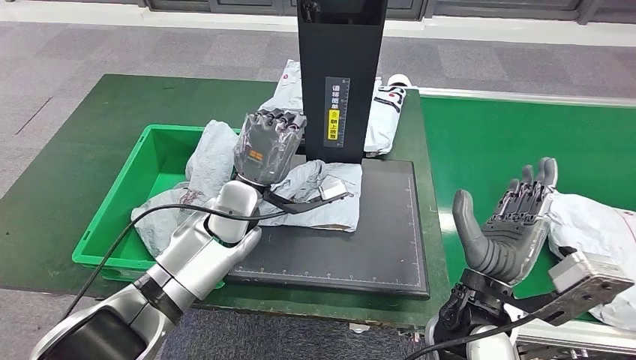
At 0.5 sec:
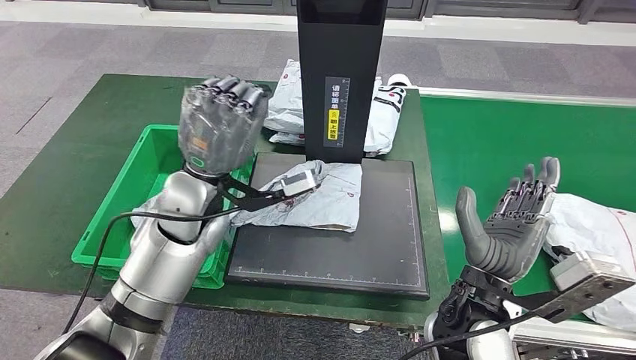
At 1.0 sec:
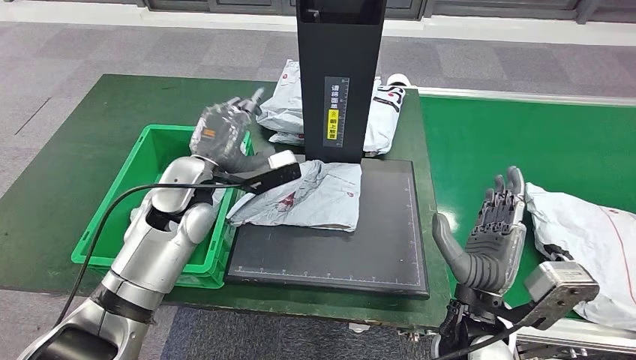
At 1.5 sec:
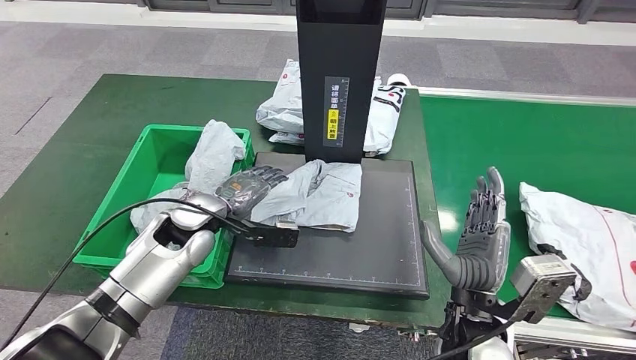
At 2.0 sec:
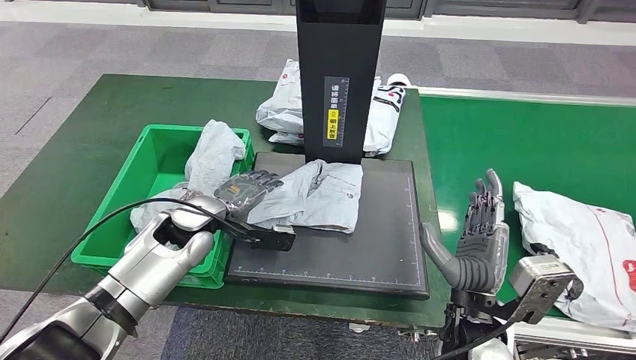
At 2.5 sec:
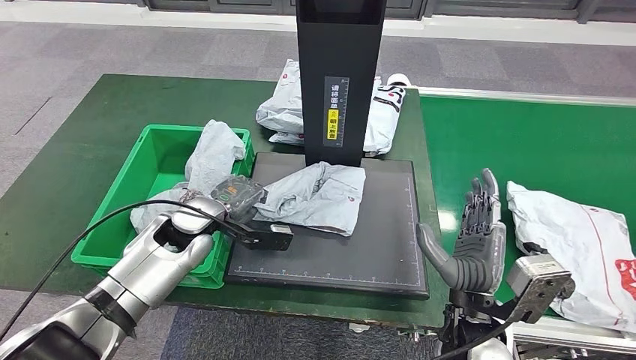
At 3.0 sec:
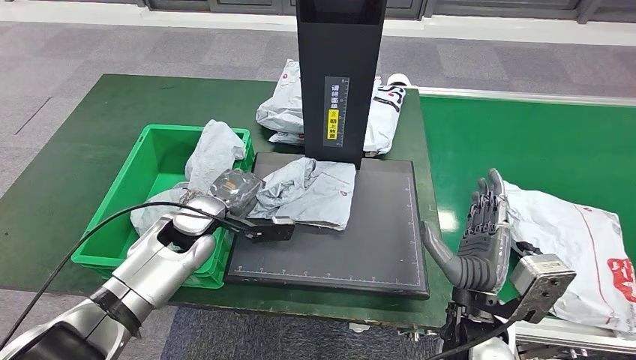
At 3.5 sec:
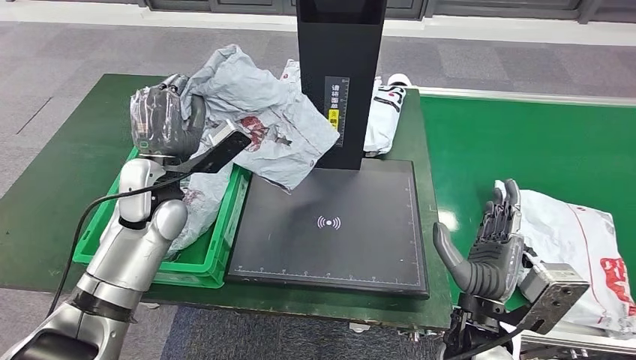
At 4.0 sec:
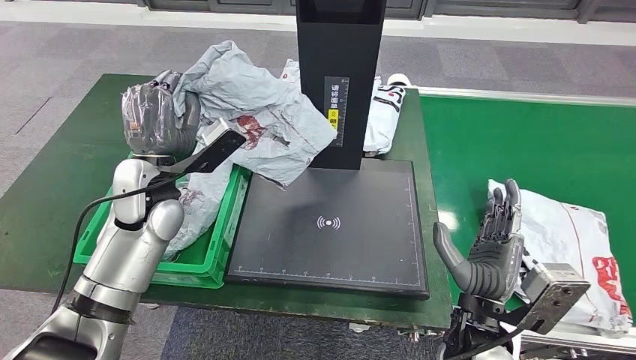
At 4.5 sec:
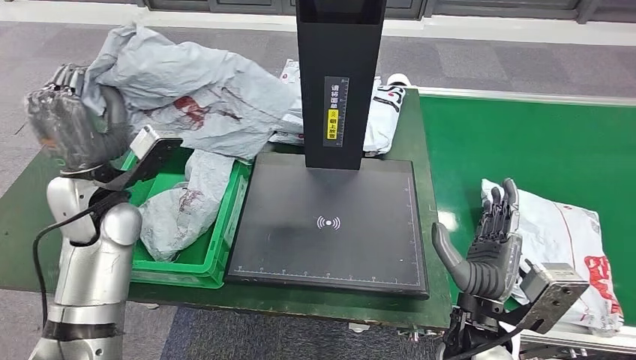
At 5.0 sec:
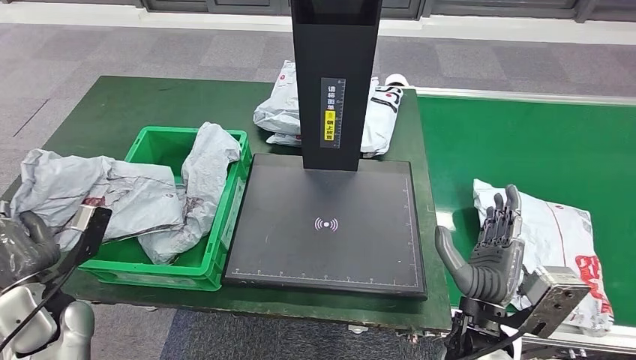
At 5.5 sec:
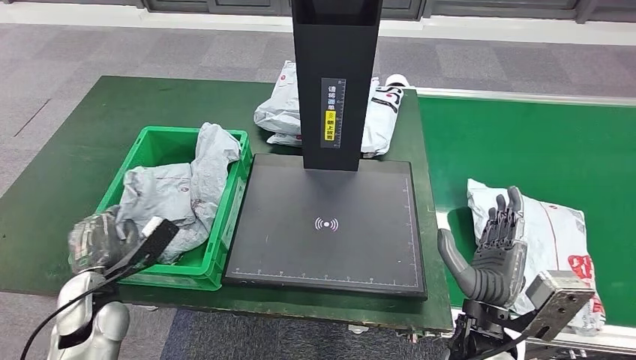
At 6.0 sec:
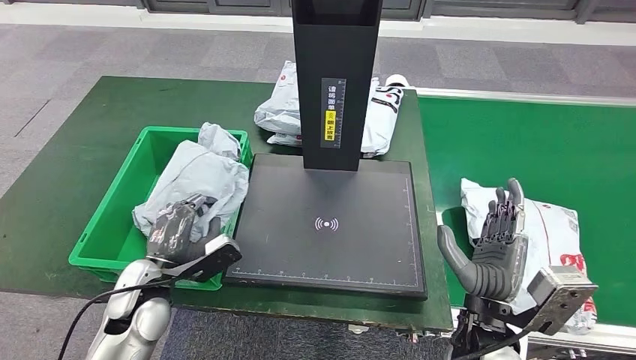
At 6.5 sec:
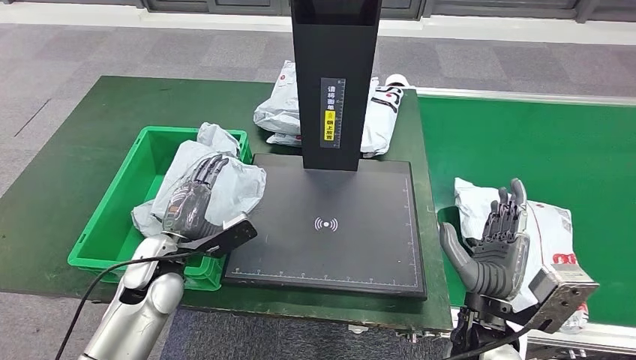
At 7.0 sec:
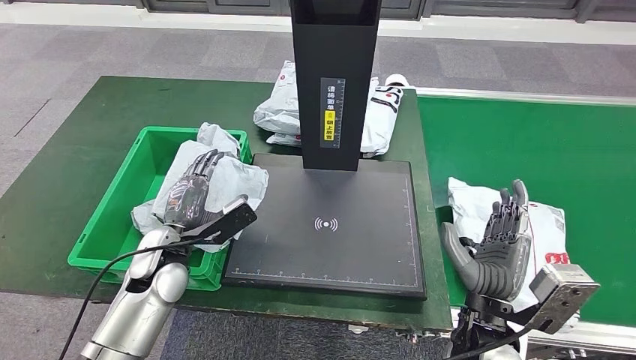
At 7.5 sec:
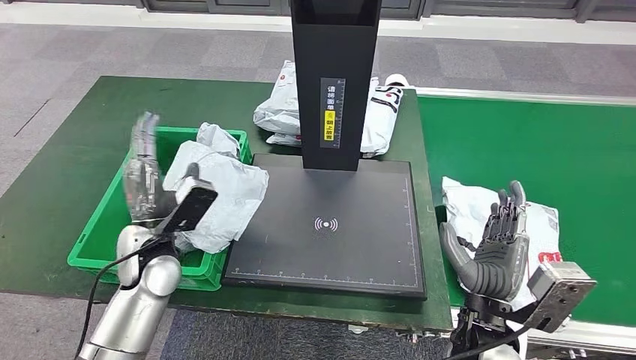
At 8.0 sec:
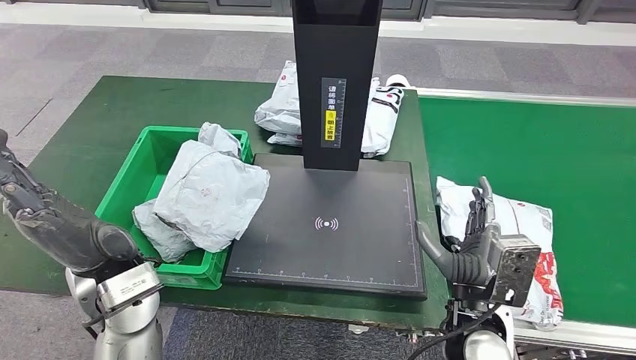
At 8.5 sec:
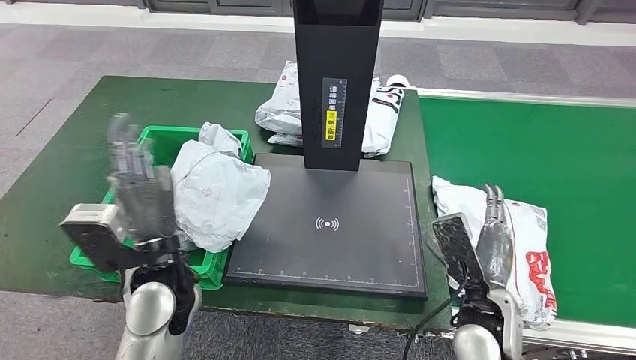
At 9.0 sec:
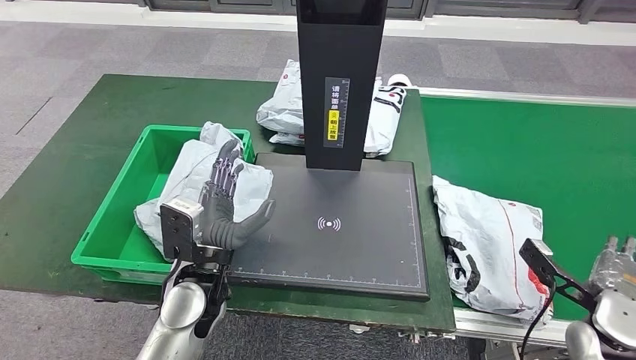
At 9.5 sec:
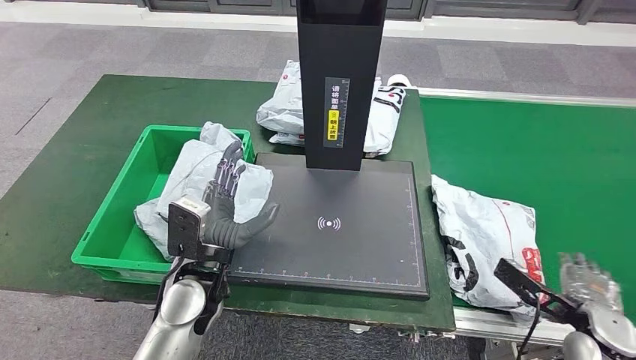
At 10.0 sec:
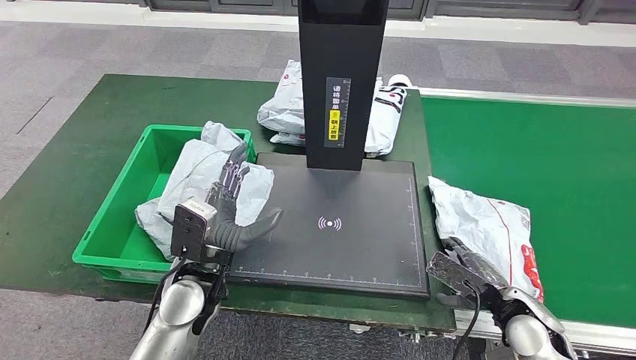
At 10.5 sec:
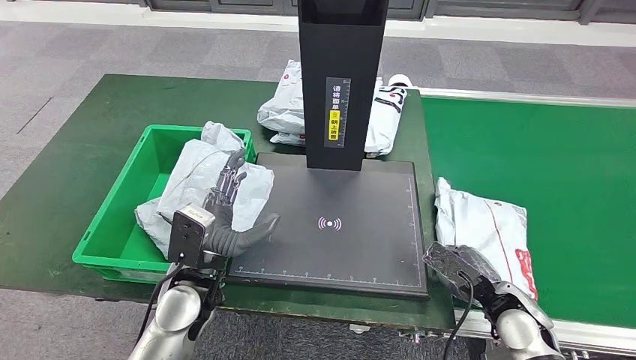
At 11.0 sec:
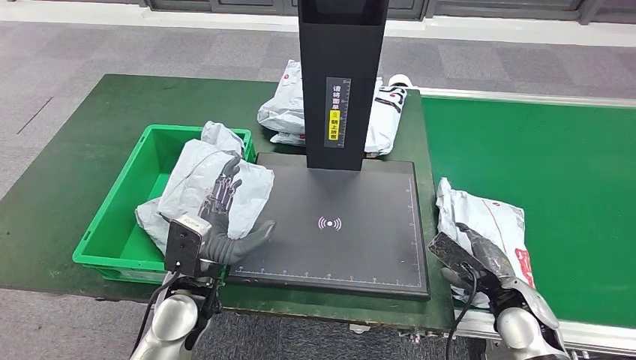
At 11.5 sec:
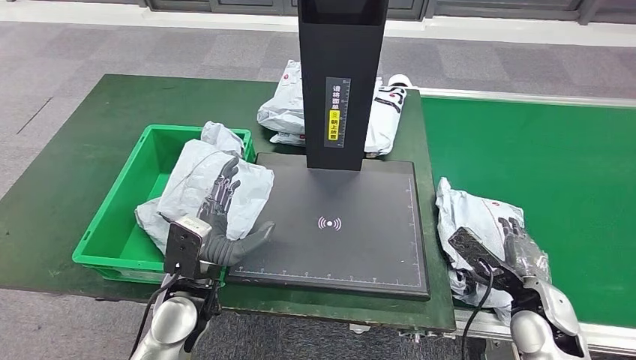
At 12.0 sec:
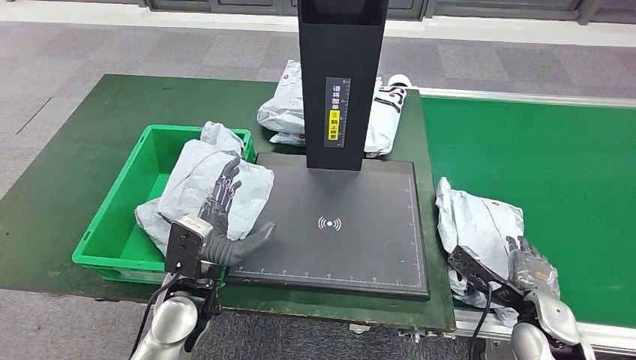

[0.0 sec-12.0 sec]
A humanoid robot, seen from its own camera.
Step, 1.0 sec to 3.5 sec: Pick up the parcel from the inbound machine.
Step, 4.5 sec to 7.5 sec: Place the parcel into the delivery box.
6.0 sec to 8.0 sec: The left hand heads upward, covering roughly 10 cm.

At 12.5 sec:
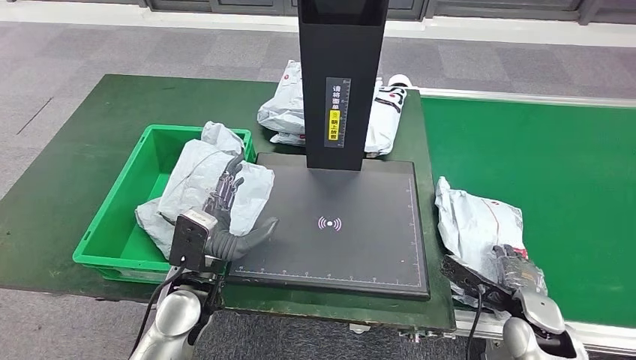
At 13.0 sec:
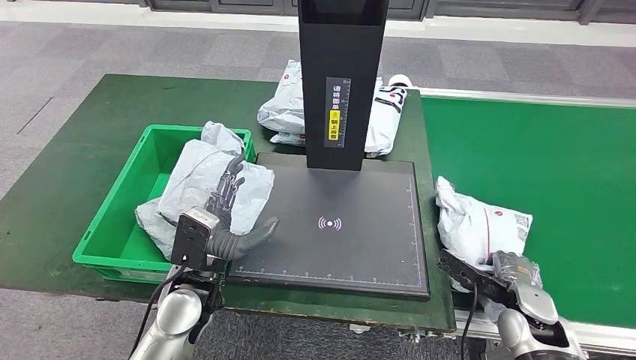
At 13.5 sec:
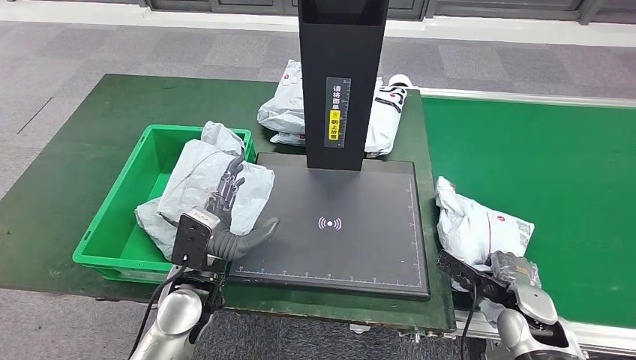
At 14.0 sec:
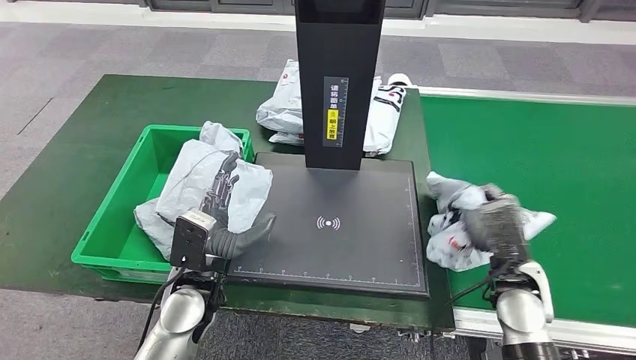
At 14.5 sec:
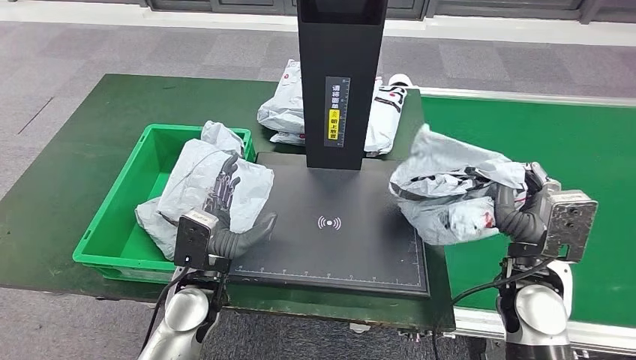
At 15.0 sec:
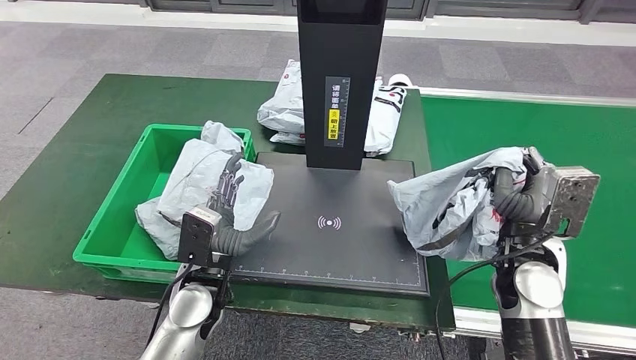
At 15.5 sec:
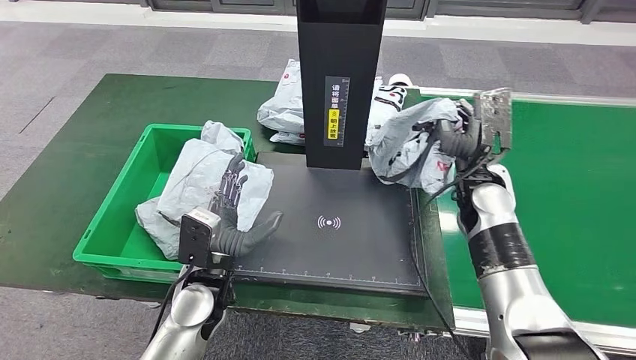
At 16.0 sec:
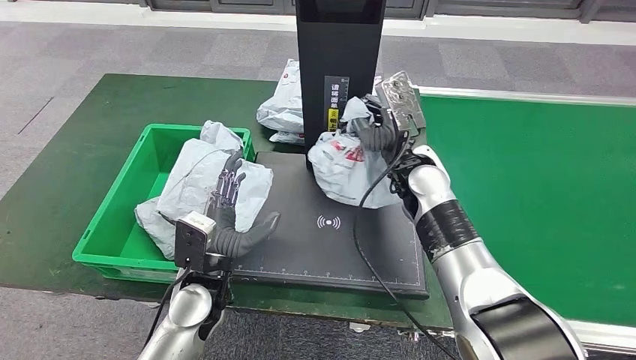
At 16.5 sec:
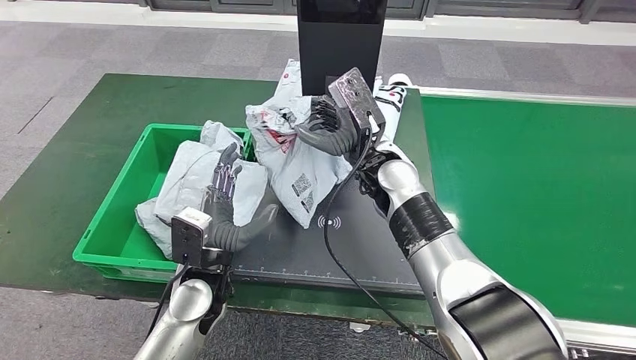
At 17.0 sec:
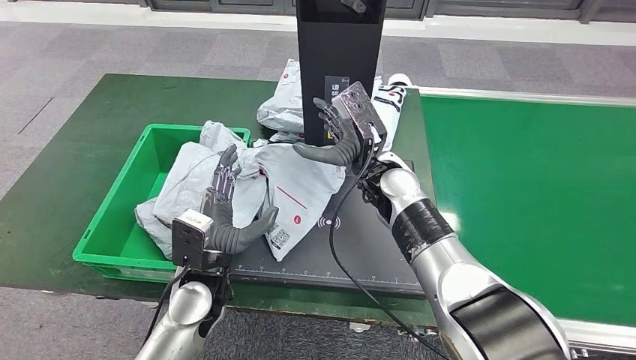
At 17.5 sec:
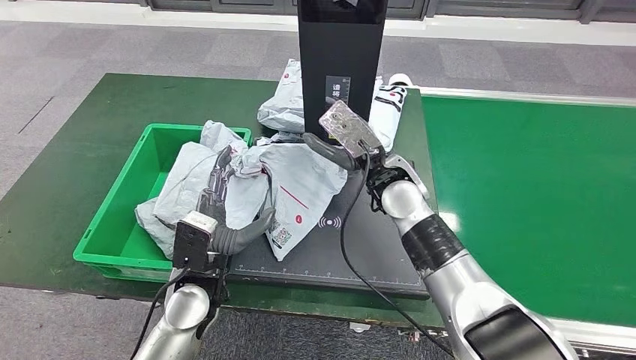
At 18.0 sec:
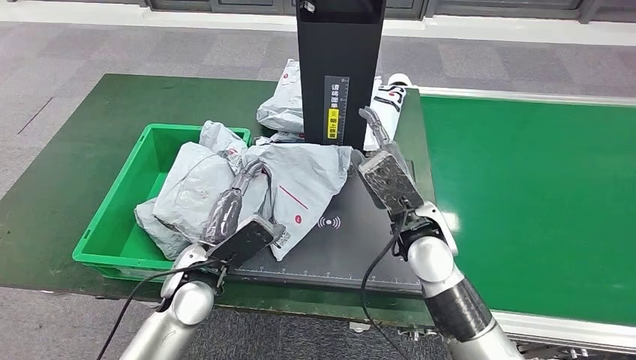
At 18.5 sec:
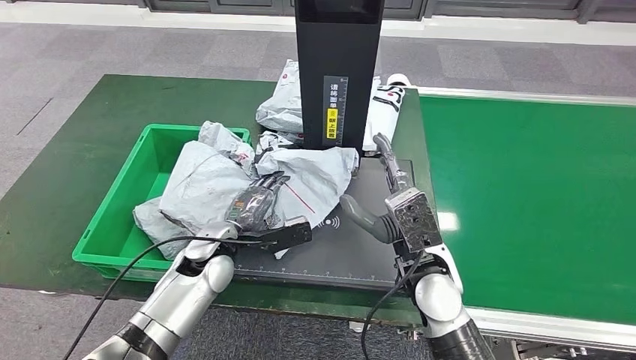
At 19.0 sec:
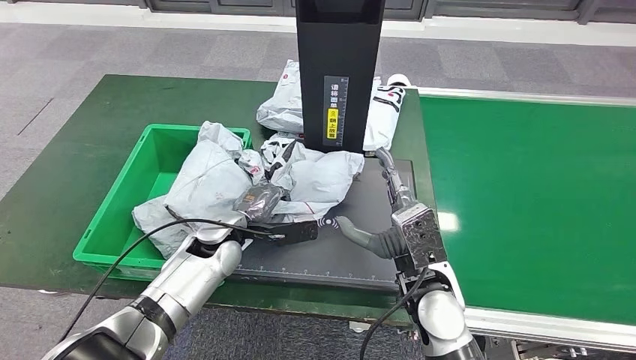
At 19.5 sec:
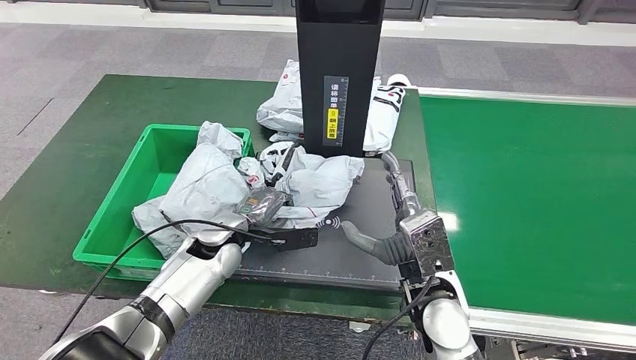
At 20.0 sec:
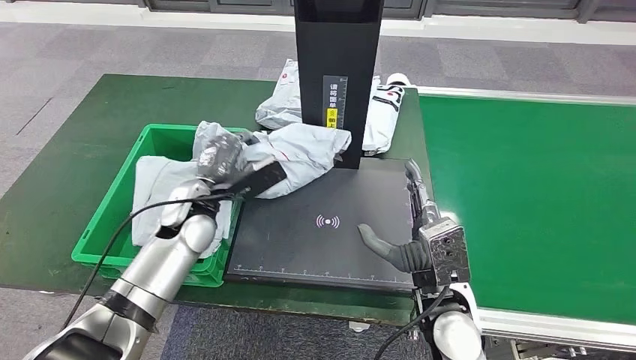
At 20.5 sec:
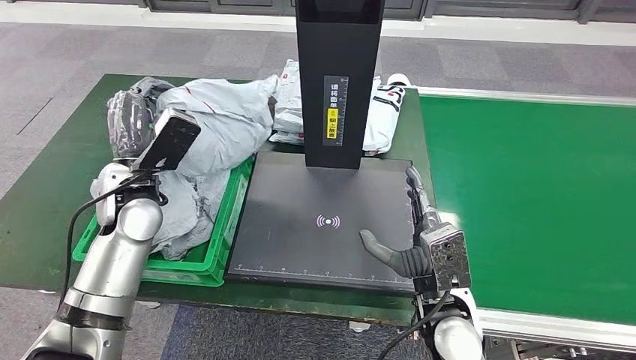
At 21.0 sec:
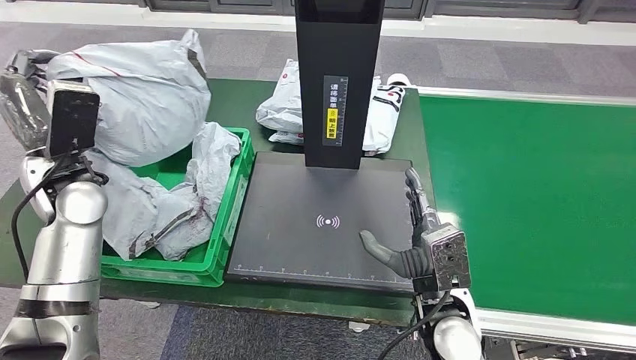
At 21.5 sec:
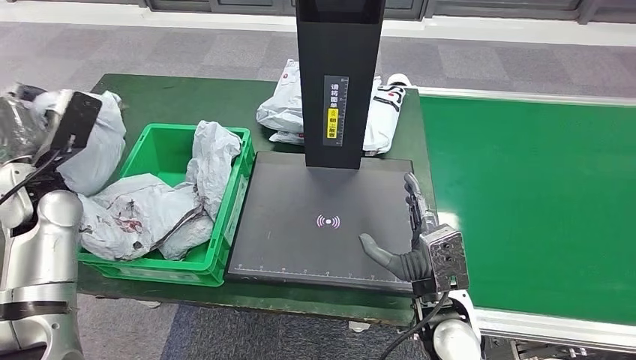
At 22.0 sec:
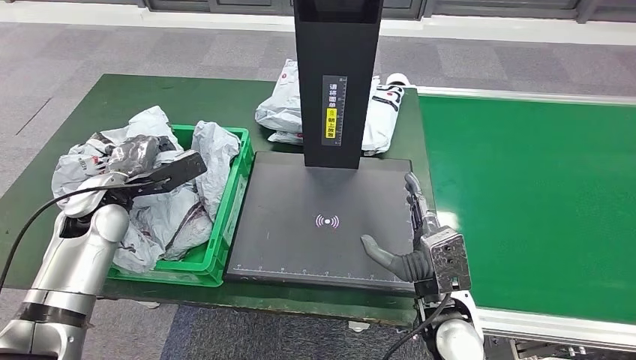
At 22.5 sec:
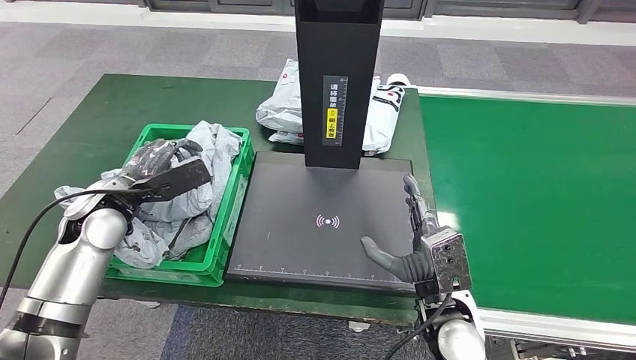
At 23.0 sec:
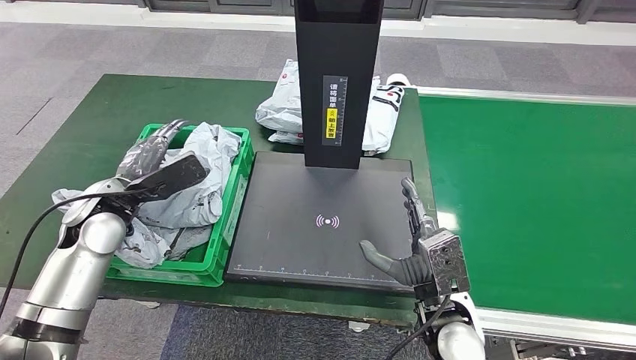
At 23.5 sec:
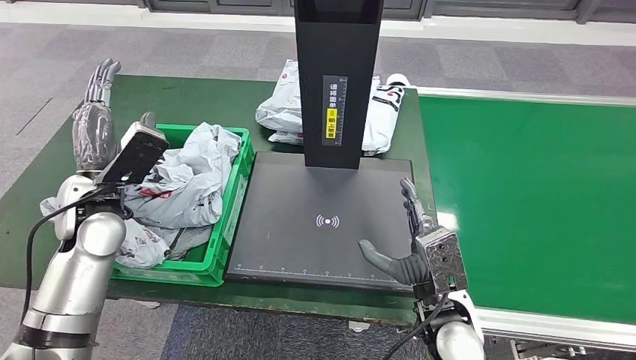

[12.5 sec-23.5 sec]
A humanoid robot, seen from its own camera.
Step, 12.5 sec to 15.0 sec: Pick up the parcel from the conveyor belt.
Step, 15.5 sec to 17.0 sec: Place the parcel onto the inbound machine.
Step, 18.0 sec to 20.5 sec: Pick up the parcel from the inbound machine.
12.5 sec to 14.5 sec: The right hand heads upward and to the left, covering about 10 cm.
